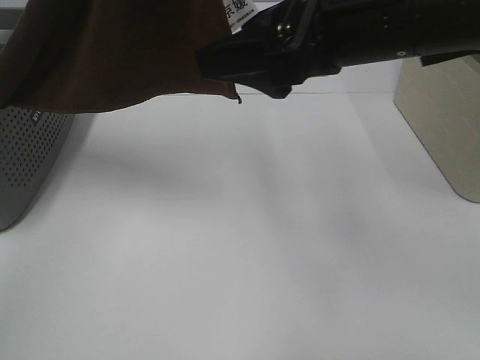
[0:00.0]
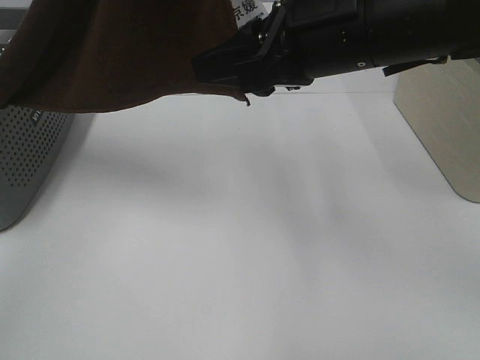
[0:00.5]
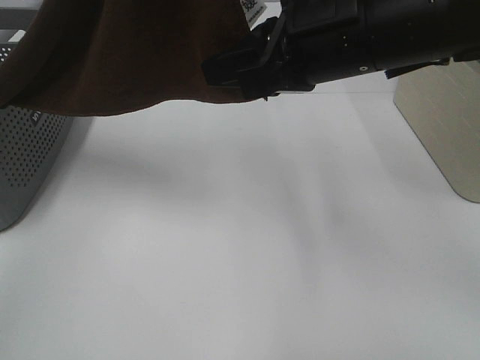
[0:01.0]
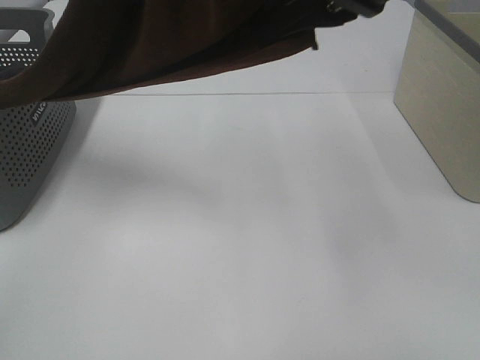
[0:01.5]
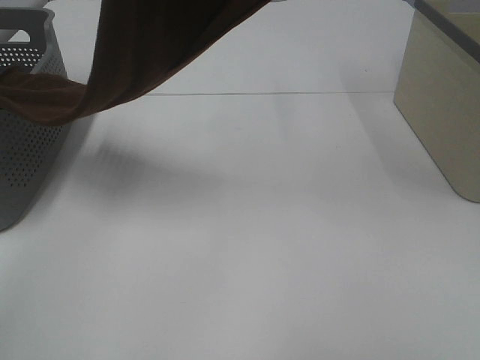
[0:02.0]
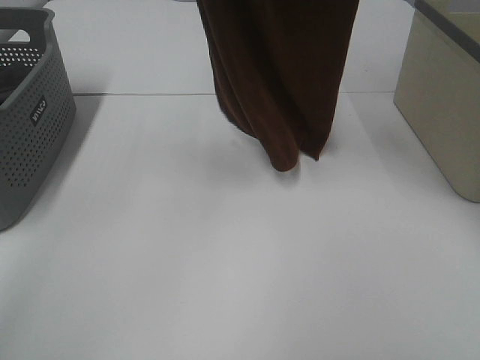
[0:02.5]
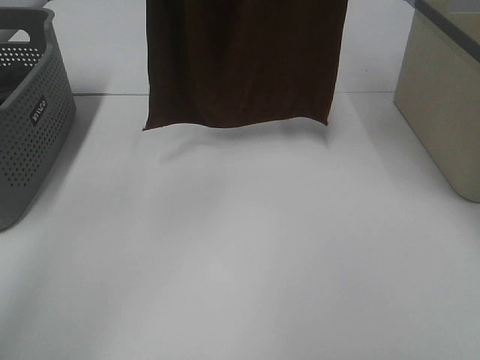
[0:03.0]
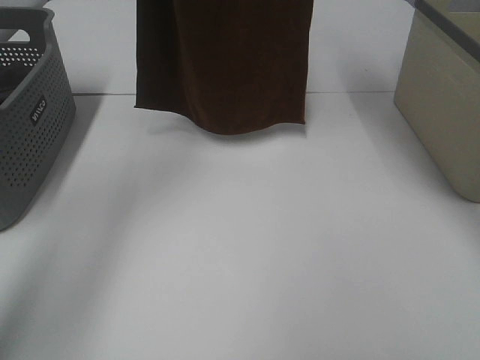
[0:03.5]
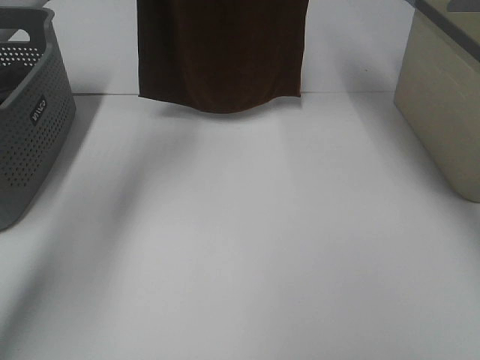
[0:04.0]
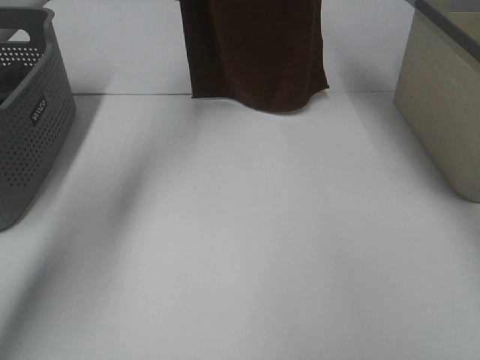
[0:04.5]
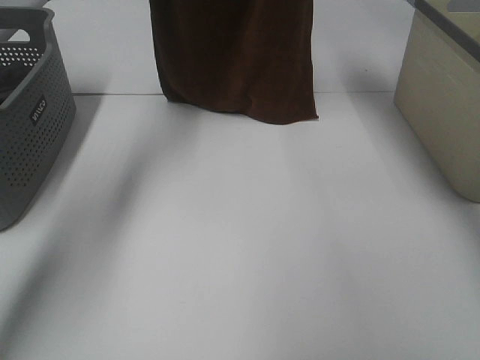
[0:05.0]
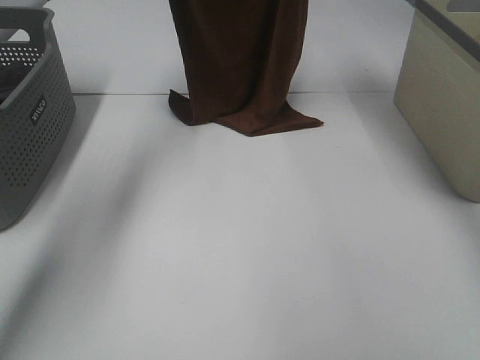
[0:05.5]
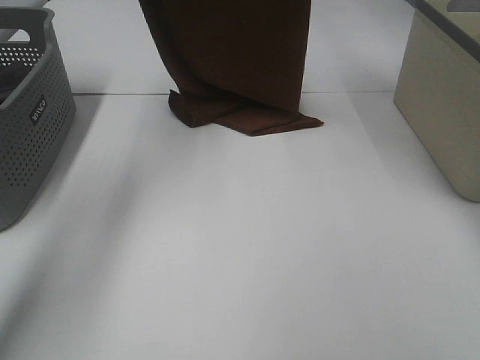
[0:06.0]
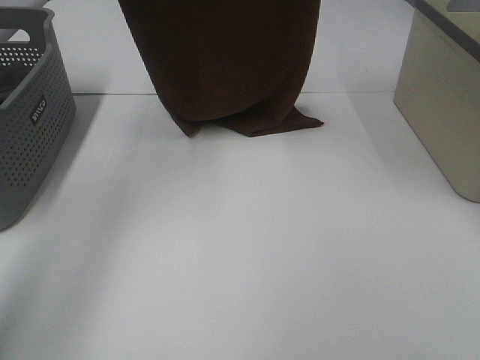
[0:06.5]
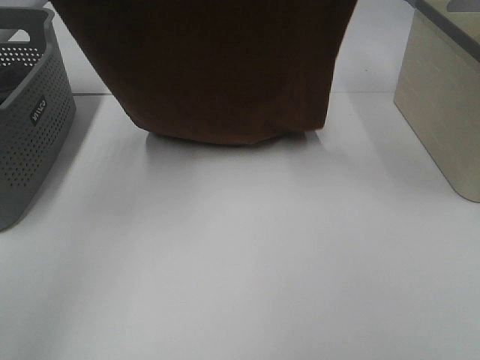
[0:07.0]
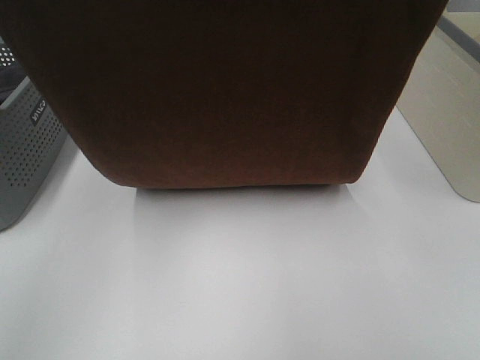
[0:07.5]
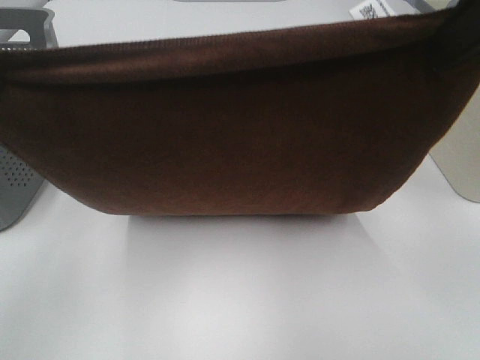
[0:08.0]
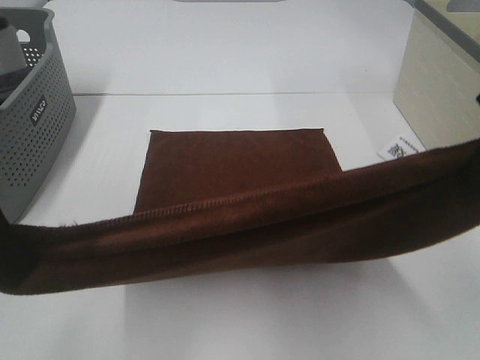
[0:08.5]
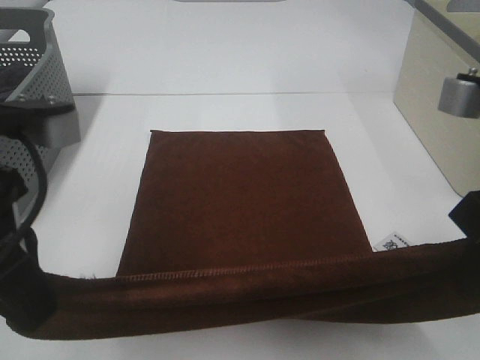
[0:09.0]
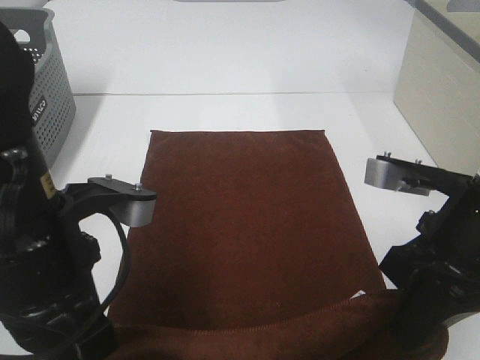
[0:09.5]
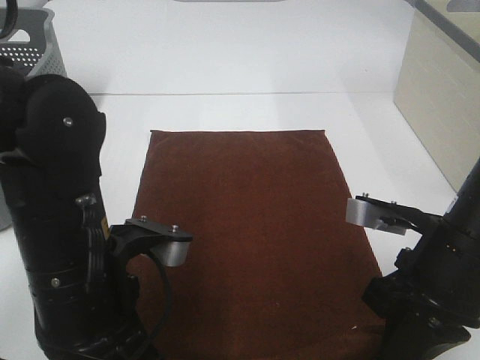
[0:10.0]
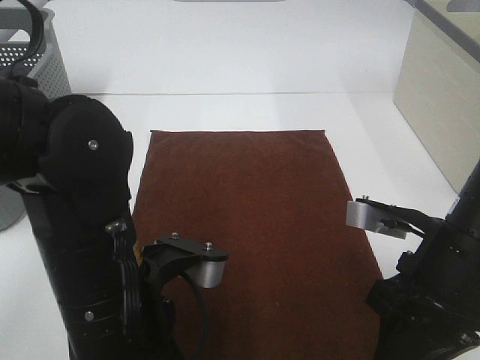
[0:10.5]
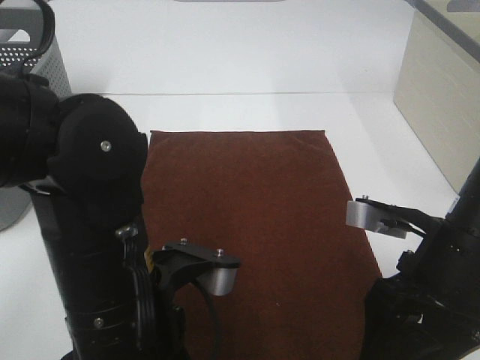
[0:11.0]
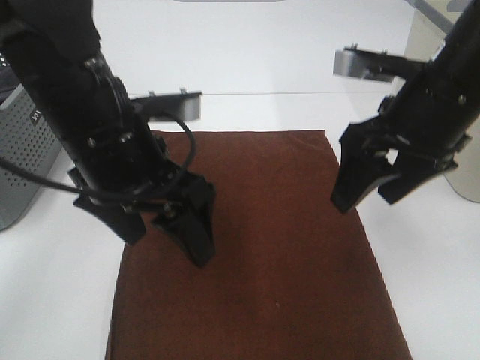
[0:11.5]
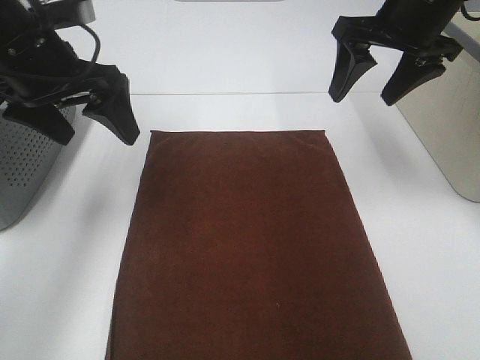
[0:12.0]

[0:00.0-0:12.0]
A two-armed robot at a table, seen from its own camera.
Task of the whole recording: Remove the towel and place it.
Step, 0:01.5 to 0:07.0: Left hand: spread the brown towel flat on the table.
Step, 0:01.5 to 0:07.0: Right hand: spread the brown towel flat on the table.
0:00.0 to 0:02.0: The right gripper travels upward by approximately 20 cm, and closes its fingers.
0:02.0 to 0:04.0: Both grippers move forward, about 20 cm.
0:04.0 to 0:06.0: The right gripper heads downward, covering roughly 5 cm.
0:06.0 to 0:08.0: Both grippers move backward, about 25 cm.
0:08.0 to 0:10.0: The left gripper shifts approximately 25 cm downward and to the right. Meanwhile the right gripper heads downward, covering about 25 cm.
0:10.0 to 0:12.0: The right gripper shifts some 25 cm forward and upward, and opens. The left gripper goes some 20 cm forward, to the left and upward, and opens.

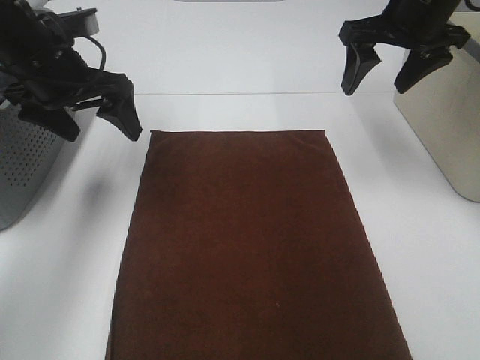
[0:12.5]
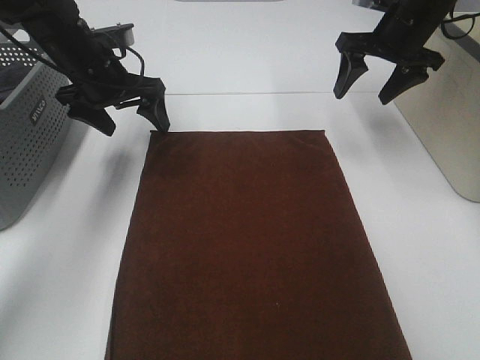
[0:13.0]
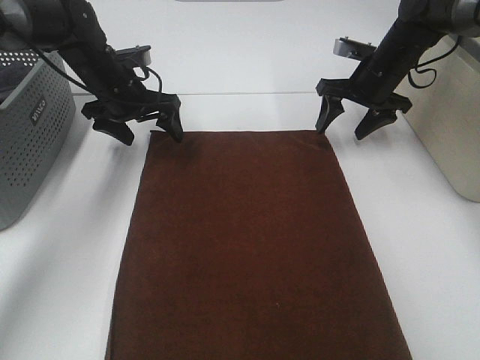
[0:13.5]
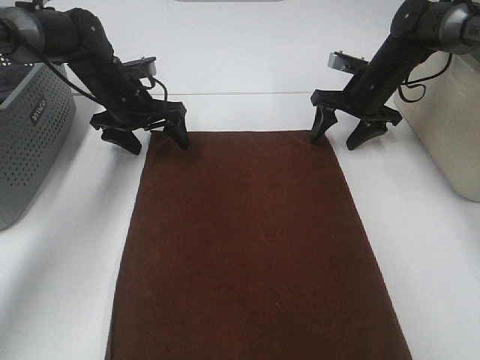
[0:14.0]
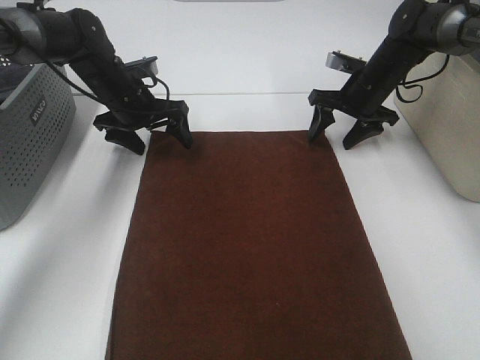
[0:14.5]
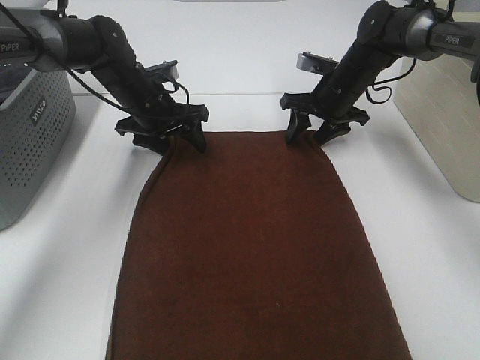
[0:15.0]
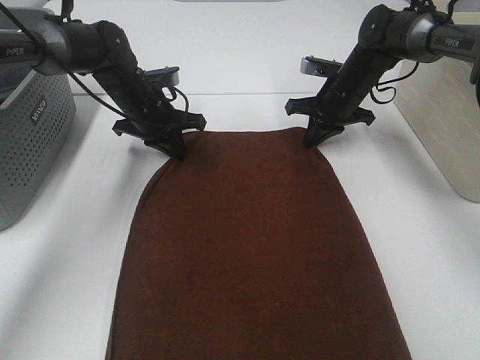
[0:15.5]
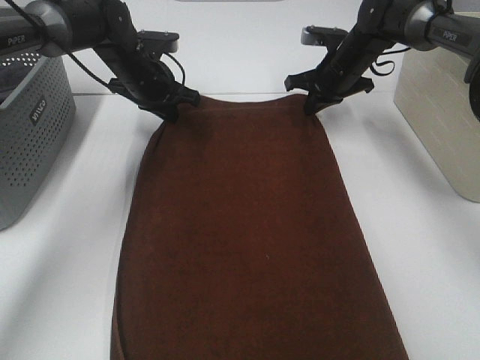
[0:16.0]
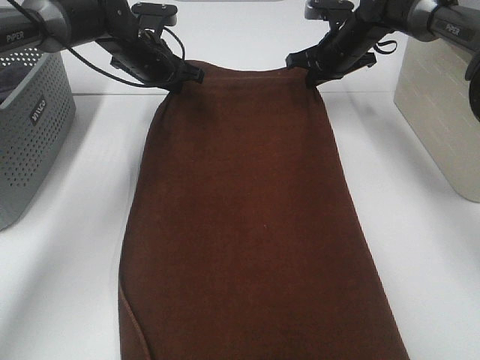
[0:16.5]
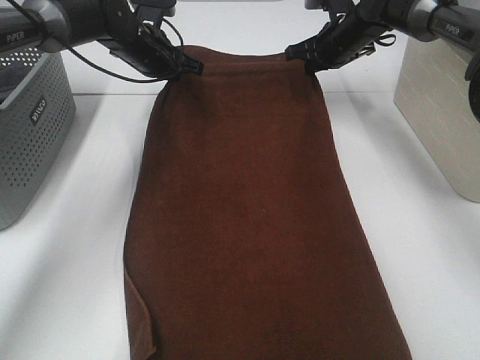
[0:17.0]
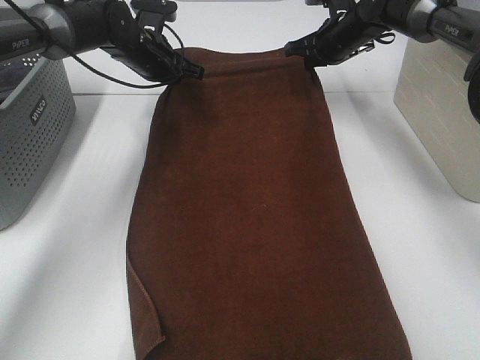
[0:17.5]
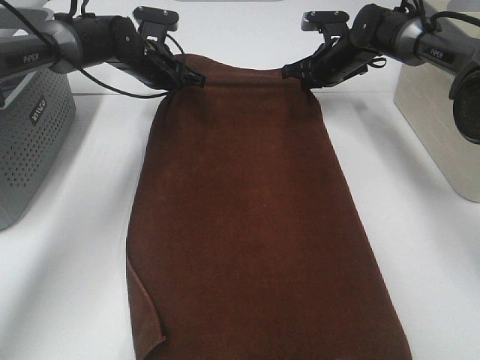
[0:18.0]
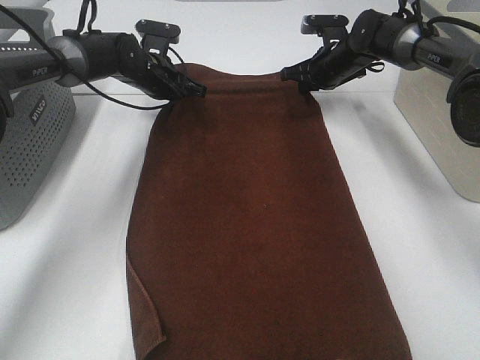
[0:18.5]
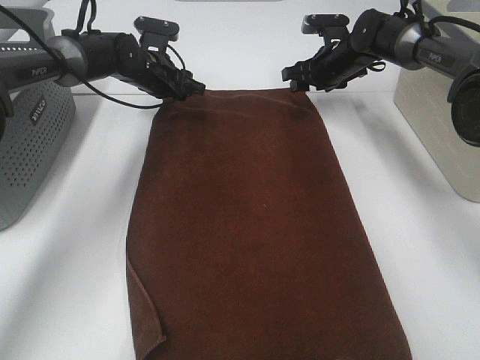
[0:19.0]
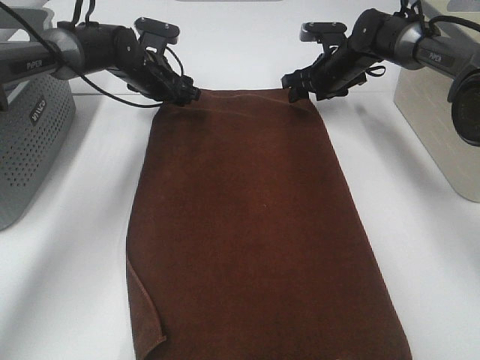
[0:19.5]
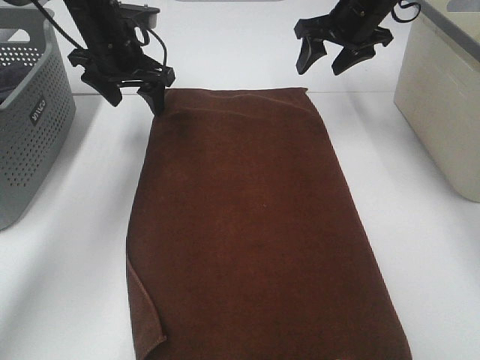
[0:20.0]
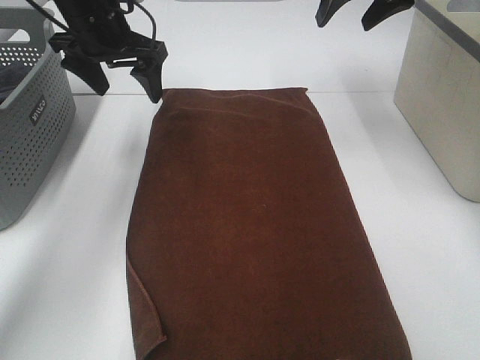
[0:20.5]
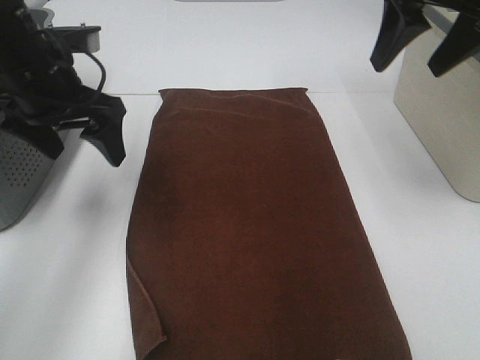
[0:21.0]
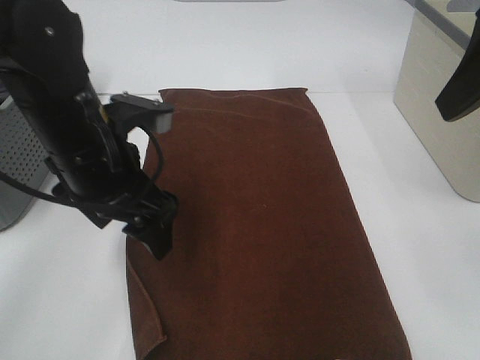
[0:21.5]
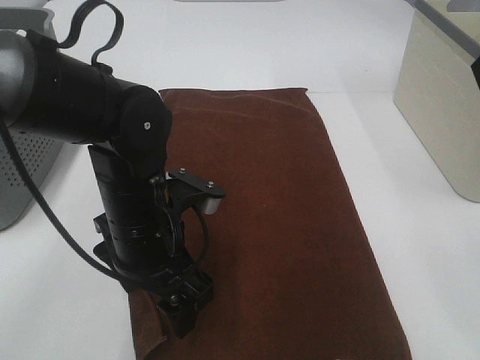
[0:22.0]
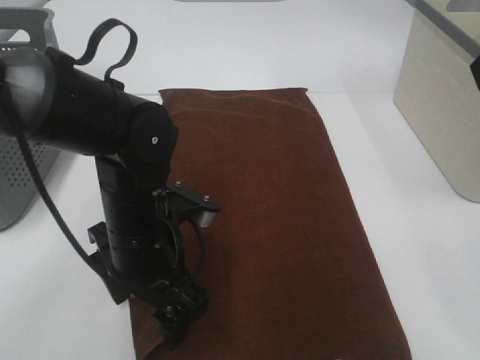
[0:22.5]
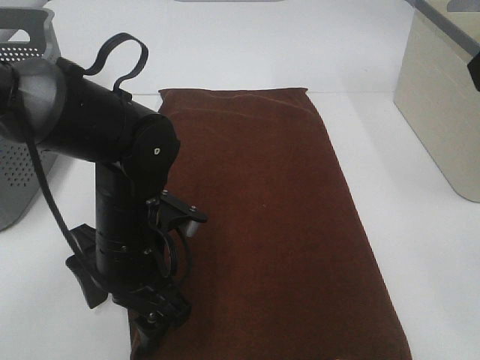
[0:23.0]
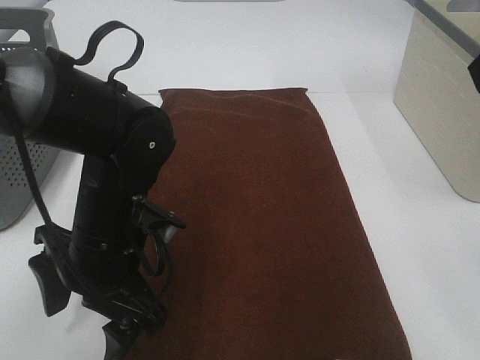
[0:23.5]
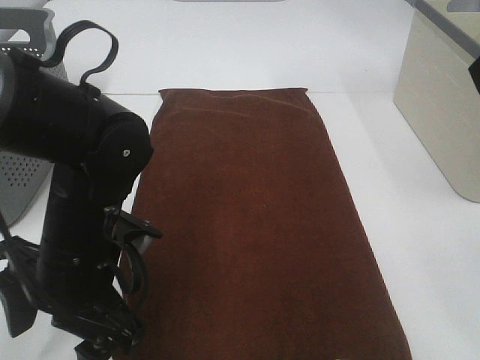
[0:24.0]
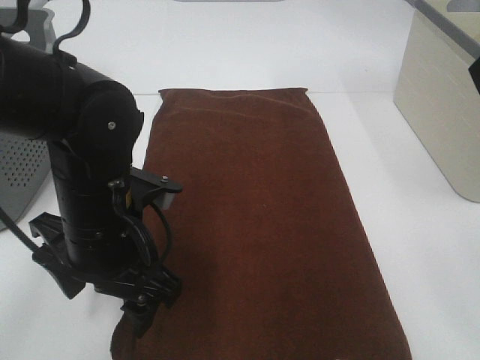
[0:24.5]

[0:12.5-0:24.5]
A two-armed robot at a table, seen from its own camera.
Task of the whole recording: Remove the towel and place it.
0:12.5 to 0:14.5: The two grippers go approximately 20 cm downward and forward.
0:14.5 to 0:16.5: The right gripper shifts by some 10 cm, and closes its fingers; the left gripper changes place by some 5 cm, and closes.
0:16.5 to 0:18.5: The grippers move only a little.
0:18.5 to 0:20.5: Both grippers travel together upward and backward, approximately 20 cm. The right gripper opens. Meanwhile the left gripper opens its fingers.
0:20.5 to 0:22.5: The left gripper travels backward, downward and to the right by some 25 cm; the right gripper moves backward, some 30 cm.

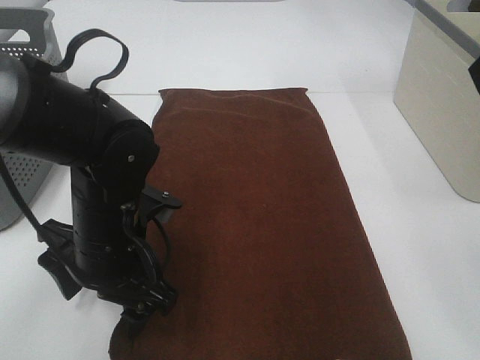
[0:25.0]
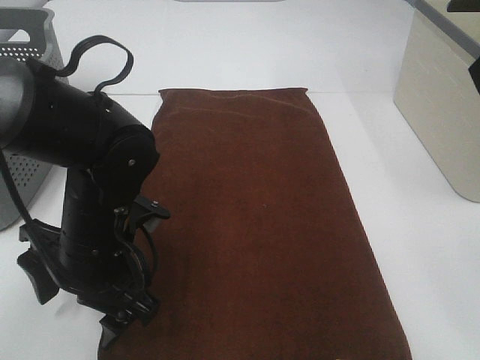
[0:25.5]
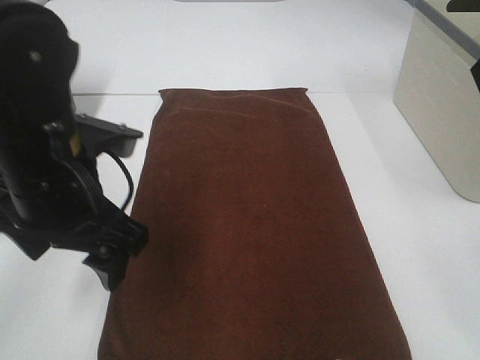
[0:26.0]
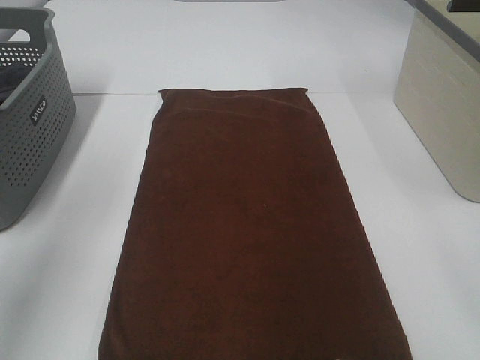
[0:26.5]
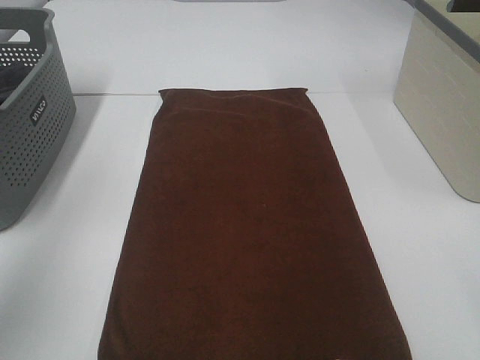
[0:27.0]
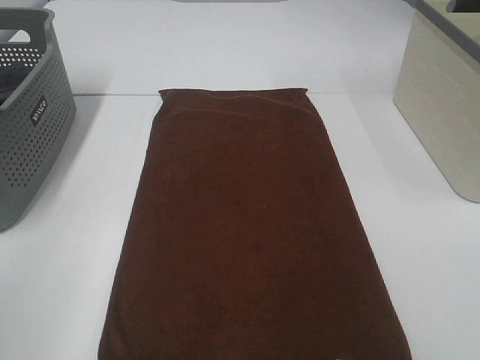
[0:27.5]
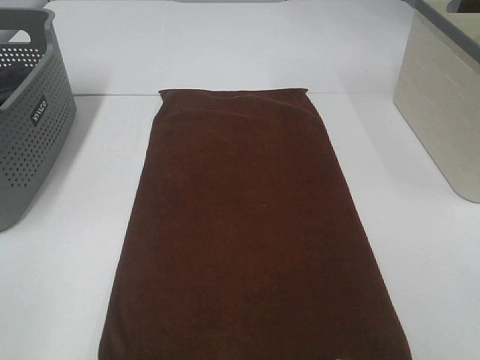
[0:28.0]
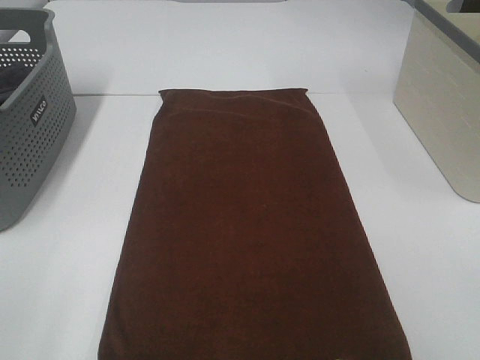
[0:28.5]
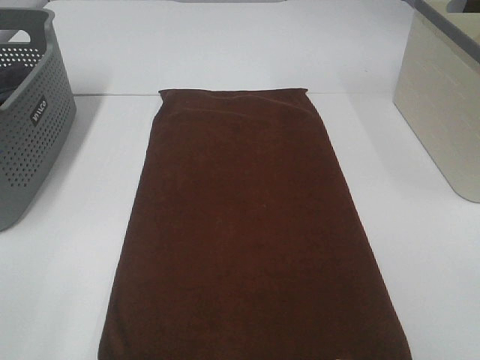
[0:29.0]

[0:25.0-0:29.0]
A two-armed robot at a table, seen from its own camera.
Task of the whole recording: Remove the towel and place it.
0:25.0 to 0:27.0: The left gripper shifts roughly 30 cm upward and to the left. The right gripper moves backward, approximately 5 cm.
0:27.0 to 0:29.0: The left gripper shifts roughly 20 cm backward and downward.
